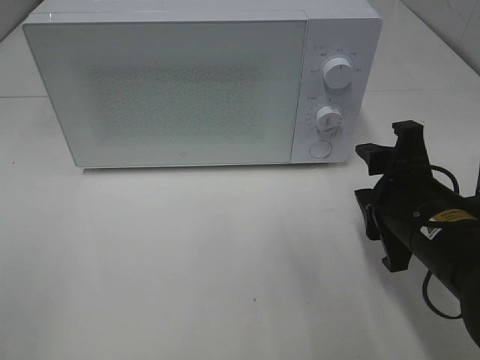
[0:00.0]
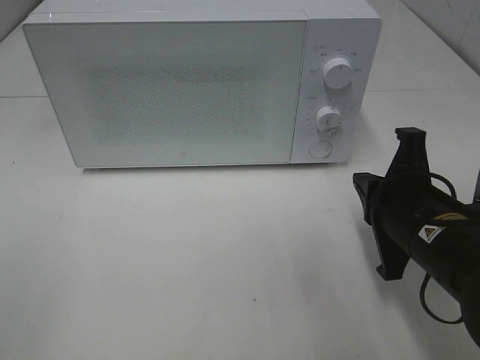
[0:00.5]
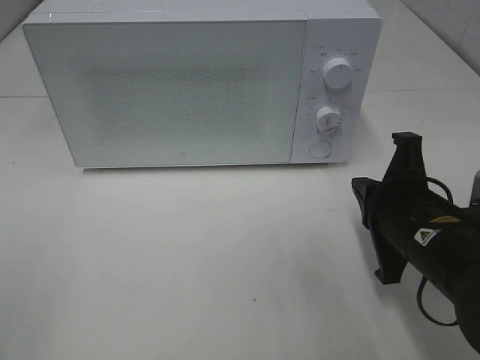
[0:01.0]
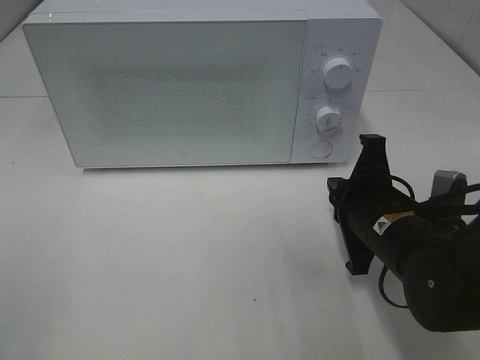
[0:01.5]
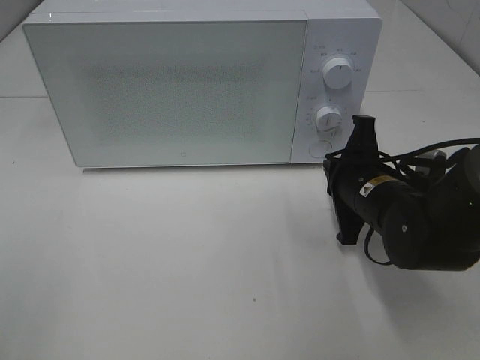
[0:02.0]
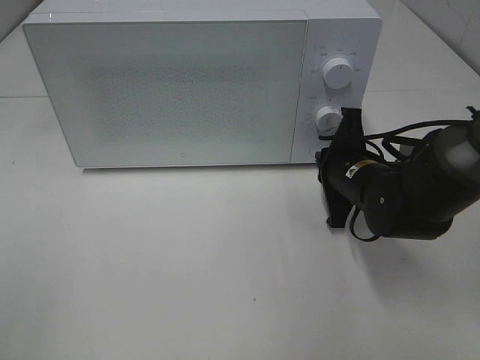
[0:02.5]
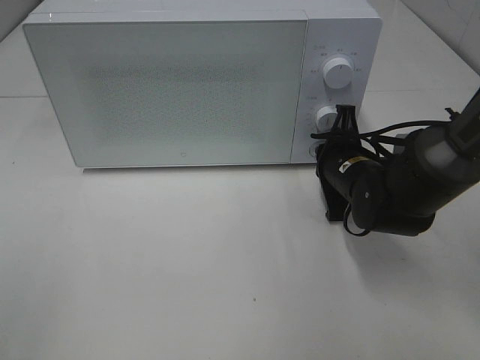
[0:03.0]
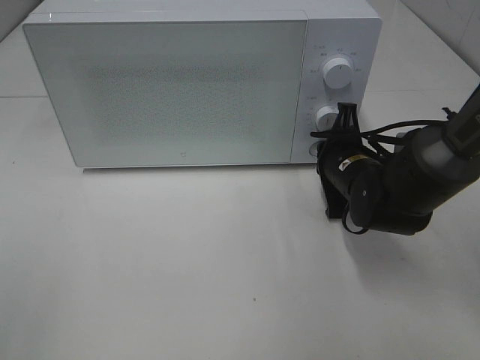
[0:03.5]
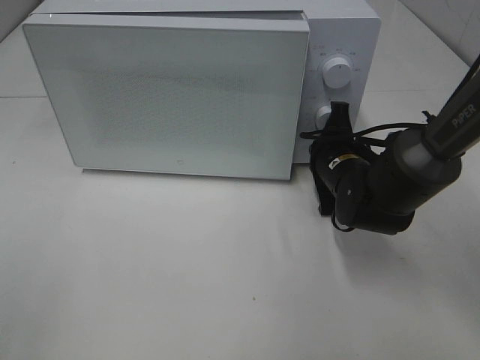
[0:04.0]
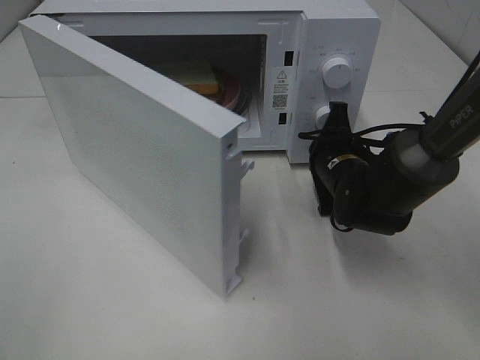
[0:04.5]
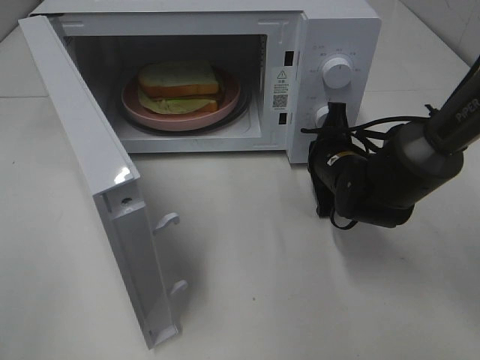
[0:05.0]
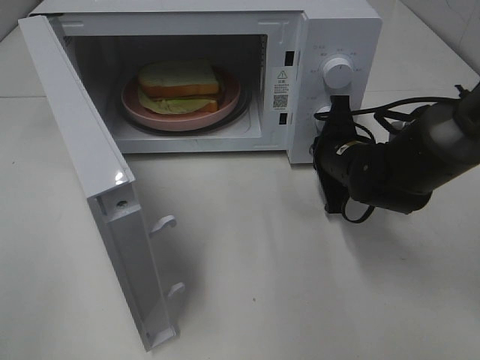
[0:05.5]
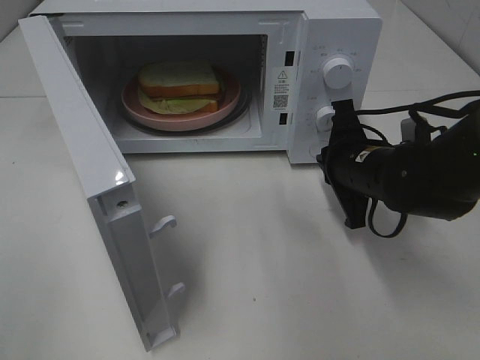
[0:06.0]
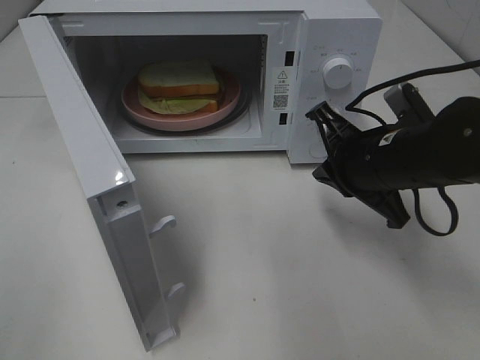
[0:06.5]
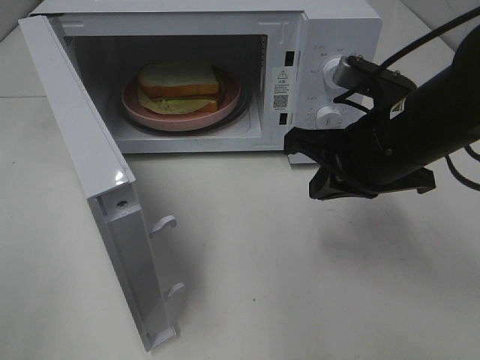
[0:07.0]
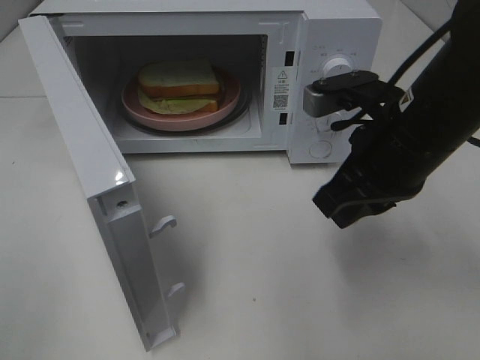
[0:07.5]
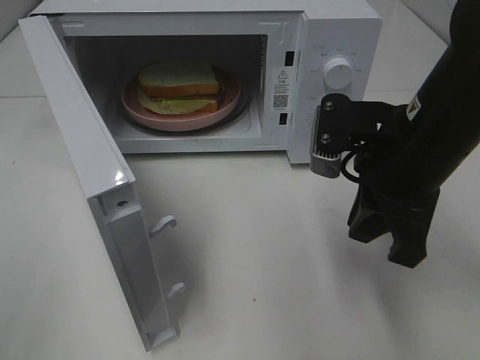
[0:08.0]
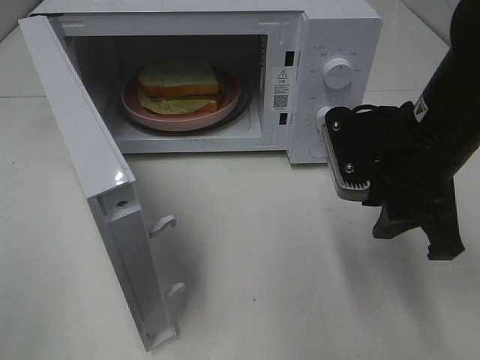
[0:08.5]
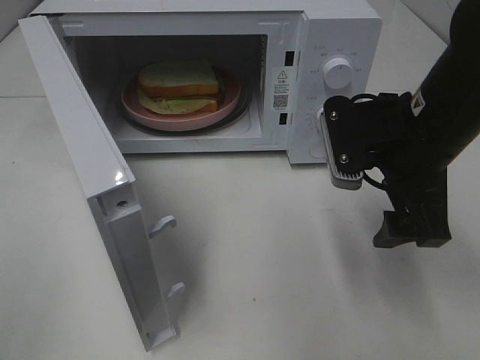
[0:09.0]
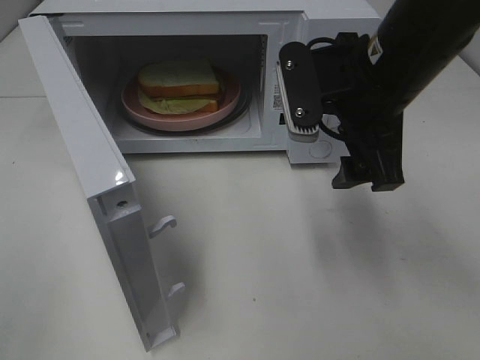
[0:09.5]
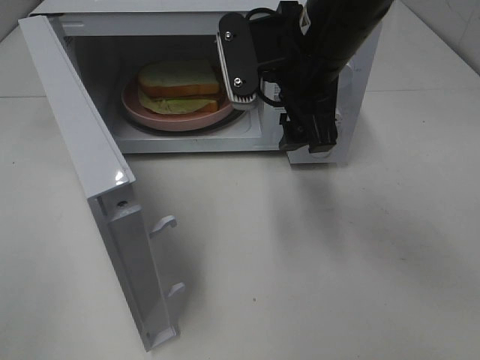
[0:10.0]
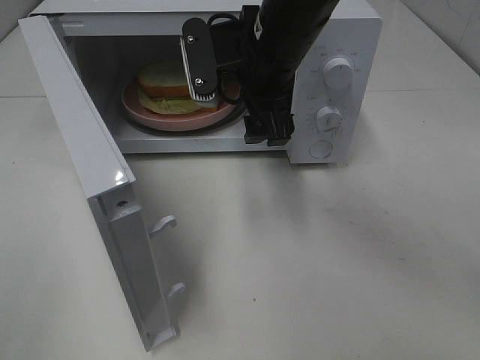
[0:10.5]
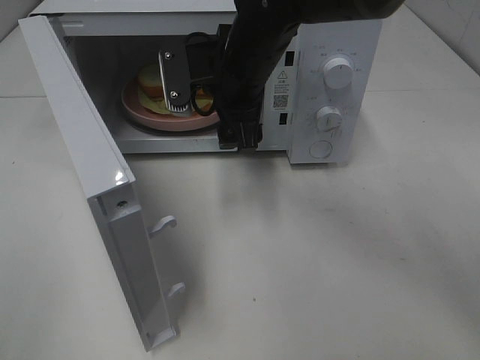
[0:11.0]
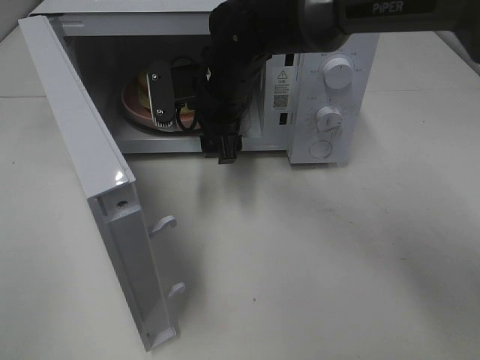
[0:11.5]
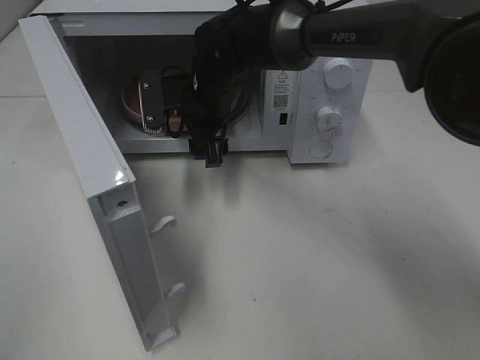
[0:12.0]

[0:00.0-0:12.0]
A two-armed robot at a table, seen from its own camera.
Task of the whole recording: Heat Sandwich.
Step, 0:00.0 to 0:06.0: Right hand: press the switch.
0:00.0 to 0:02.0: The right gripper goes approximately 10 cm forward, and closes up.
0:02.0 to 0:04.0: The right gripper heads forward, covering about 5 cm.
0:04.0 to 0:06.0: The right gripper moves some 5 cm.
0:06.0 to 0:08.0: The right gripper is displaced upward and backward by approximately 10 cm.
0:08.0 to 0:10.0: The right gripper is displaced to the left, forward and upward by approximately 10 cm, and opens its fingers.
0:10.0 to 0:12.0: The right gripper heads downward, forward and to the left, covering about 20 cm.

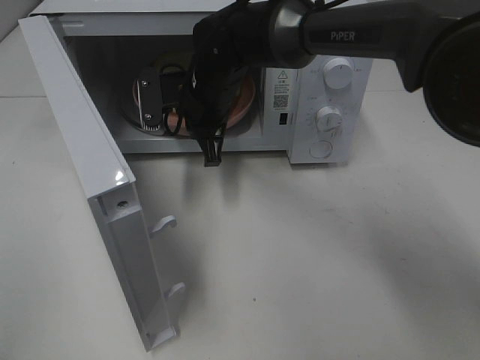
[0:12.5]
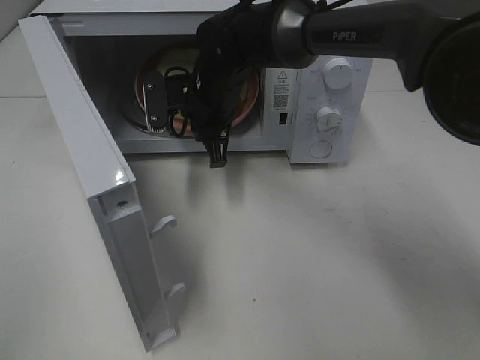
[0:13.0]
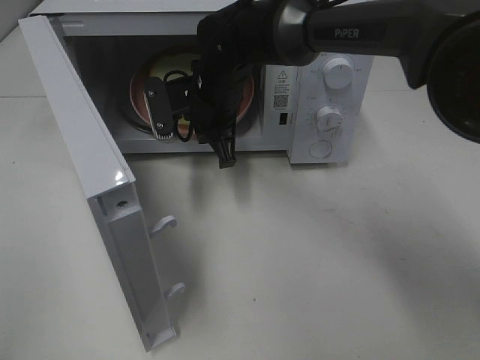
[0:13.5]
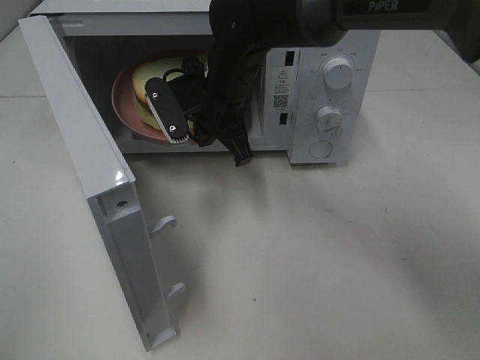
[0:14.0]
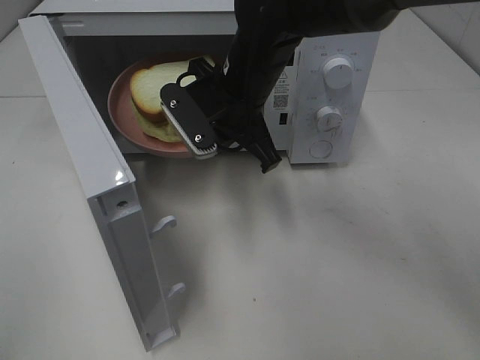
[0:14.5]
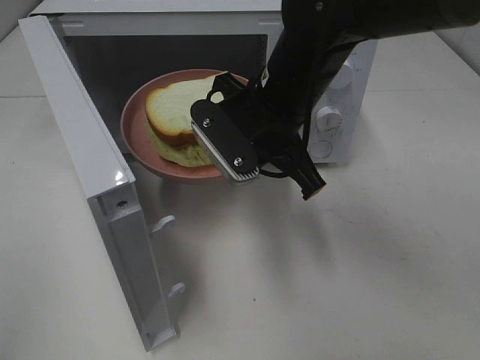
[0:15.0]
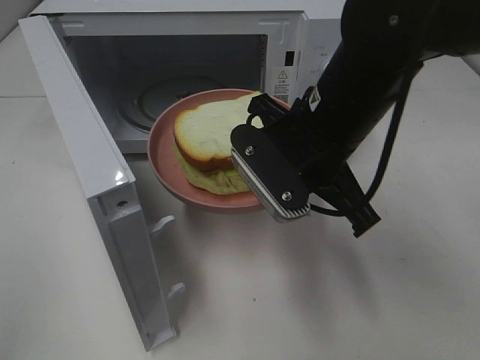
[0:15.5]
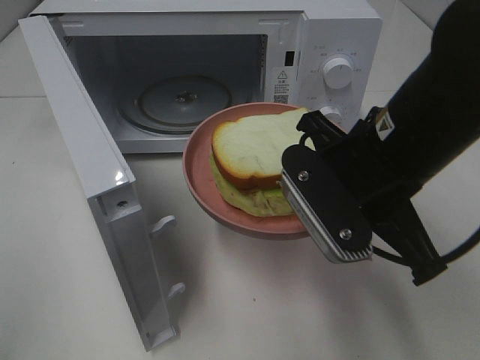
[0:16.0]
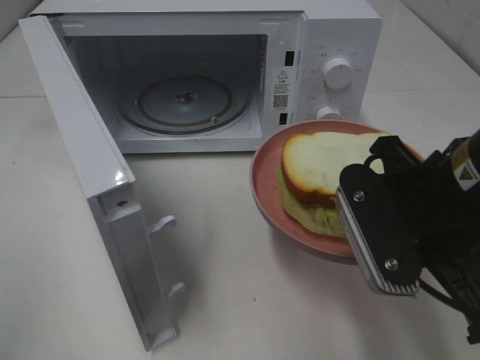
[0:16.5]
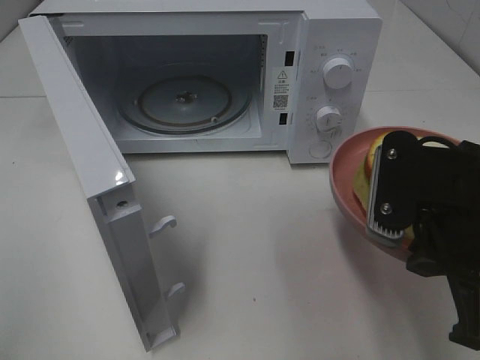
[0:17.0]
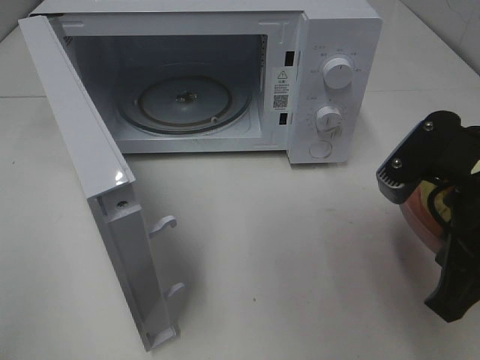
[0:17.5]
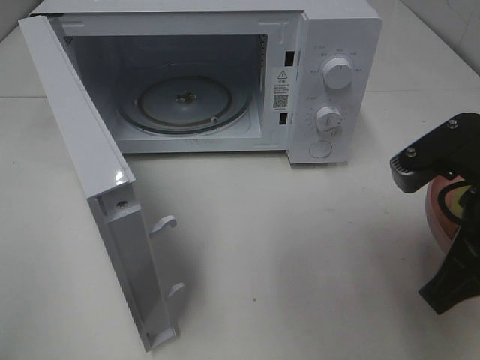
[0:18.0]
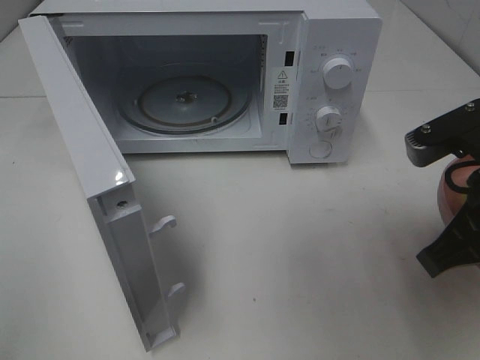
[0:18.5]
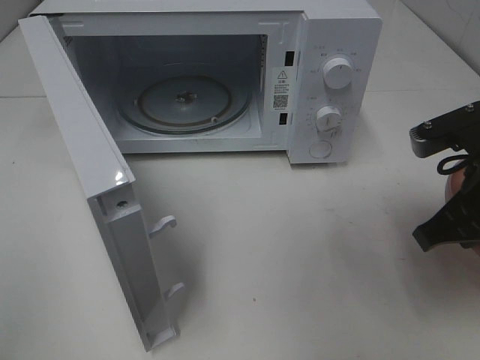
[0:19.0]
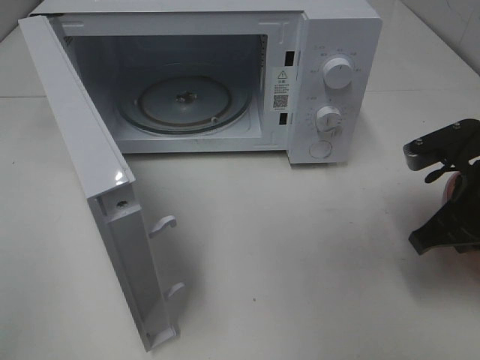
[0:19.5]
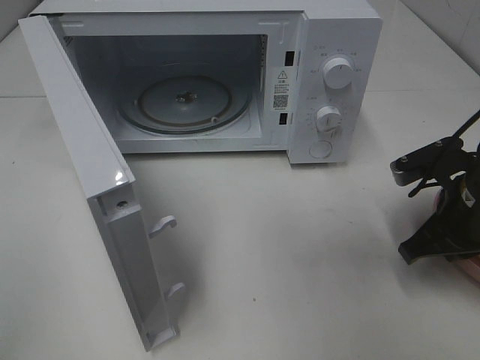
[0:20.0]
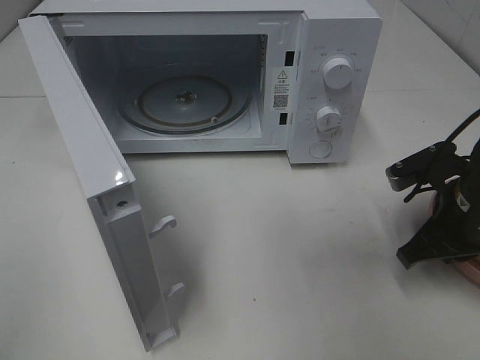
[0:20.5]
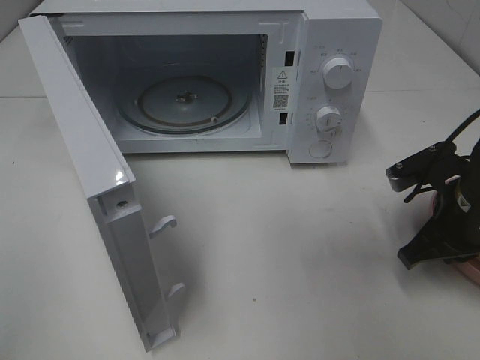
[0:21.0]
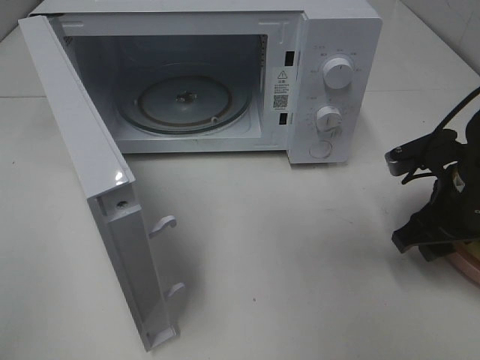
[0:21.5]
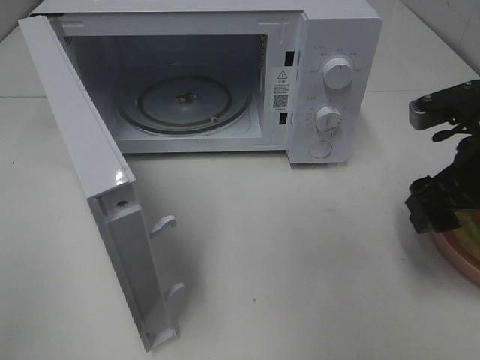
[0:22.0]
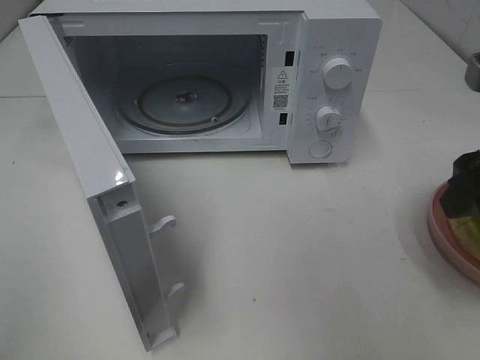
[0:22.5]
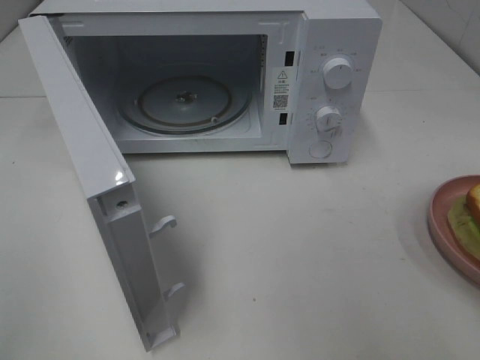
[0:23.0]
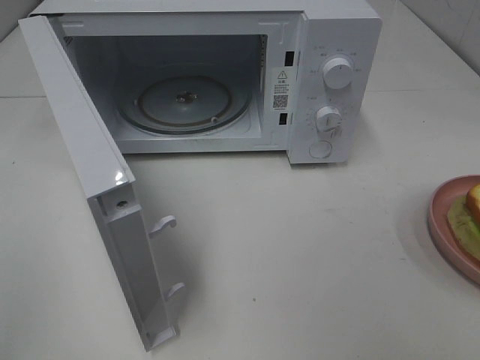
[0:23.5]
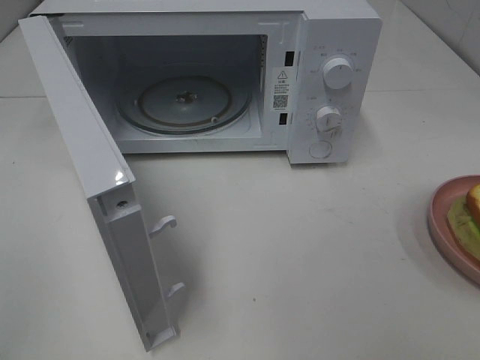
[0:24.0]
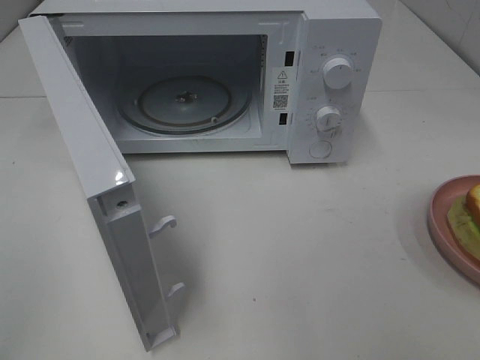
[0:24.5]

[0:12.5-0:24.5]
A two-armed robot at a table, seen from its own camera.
Task of the whole recording: Heat Sandwich.
Step, 0:13.0 to 0:21.5: Right hand: place the plate on the table.
0:12.5 to 0:14.5: The right gripper moves backward, some 5 cm.
0:14.5 to 0:16.5: The right gripper is displaced backward and to the right by approximately 25 cm.
0:16.5 to 0:18.5: The right gripper heads to the right, covering some 5 cm.
0:18.5 to 0:20.5: The right gripper shifts roughly 10 cm downward and forward.
0:20.5 to 0:22.5: The right gripper moves upward and backward, roughly 15 cm, and opens.
0:22.5 to 0:24.5: The right gripper is displaced backward by some 20 cm.

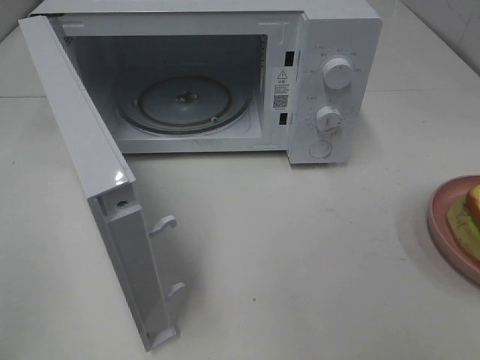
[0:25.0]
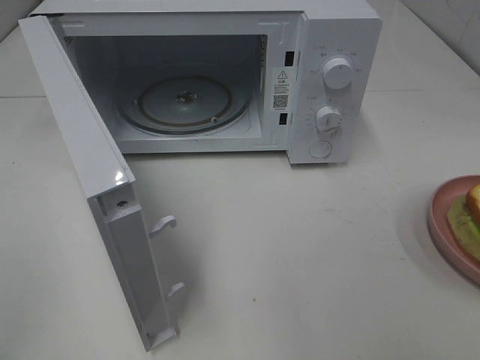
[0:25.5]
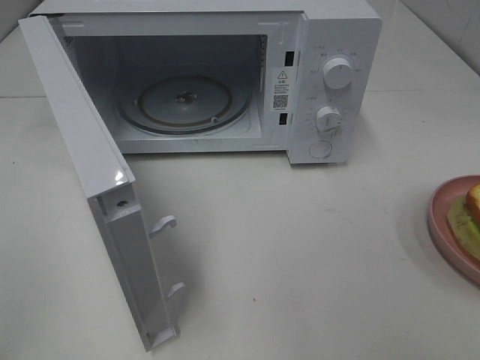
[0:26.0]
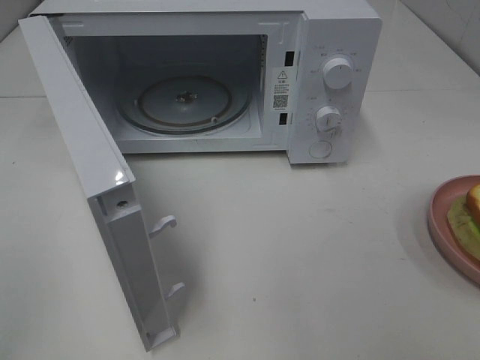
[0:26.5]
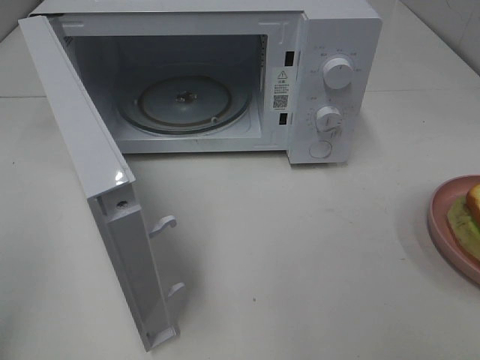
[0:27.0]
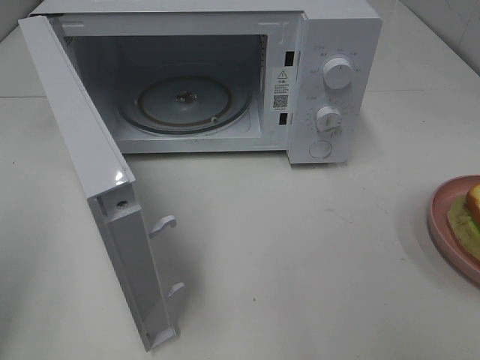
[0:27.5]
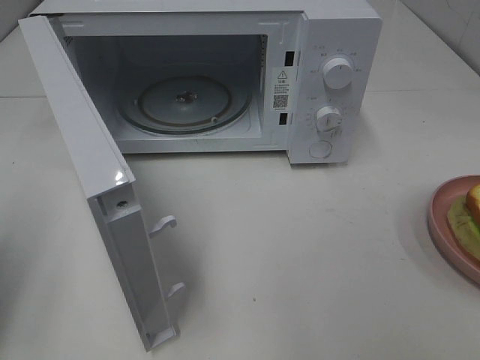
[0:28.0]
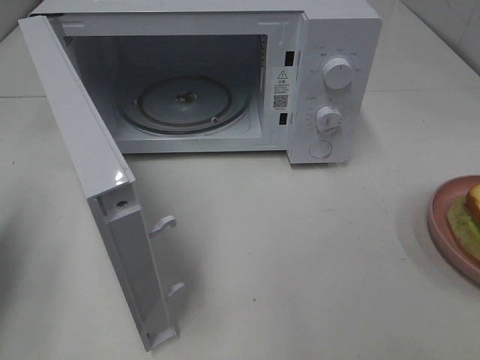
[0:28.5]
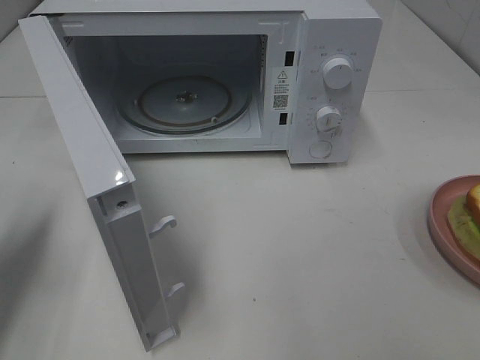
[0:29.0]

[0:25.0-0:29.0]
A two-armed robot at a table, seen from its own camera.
Task of the whole recording: Heat Sandwich.
0:27.0 to 0:29.0: The left gripper shifts about 20 cm forward and downward, and closes.
